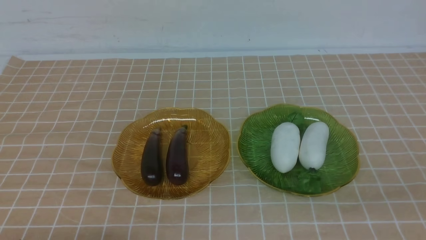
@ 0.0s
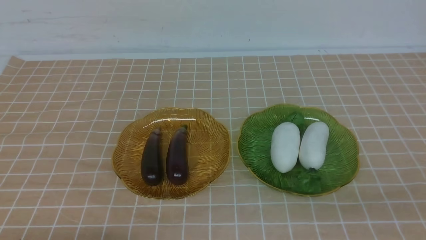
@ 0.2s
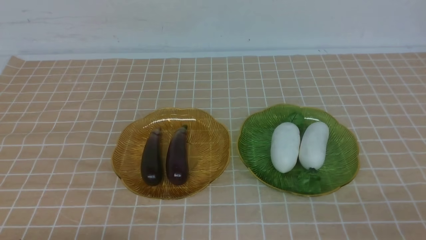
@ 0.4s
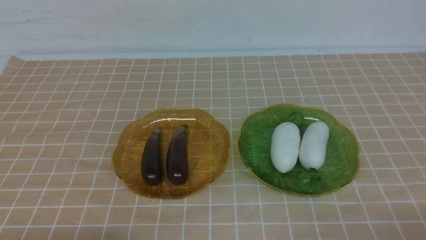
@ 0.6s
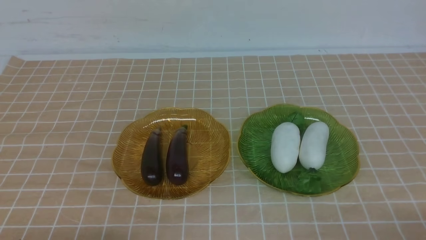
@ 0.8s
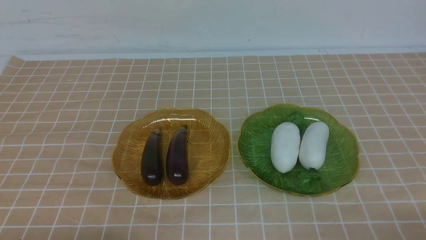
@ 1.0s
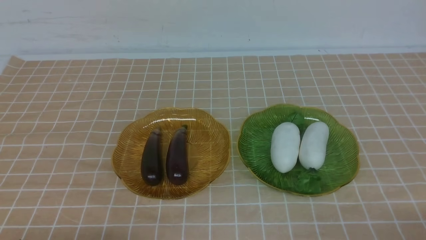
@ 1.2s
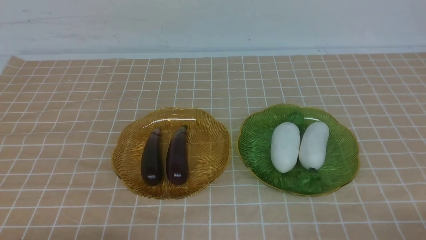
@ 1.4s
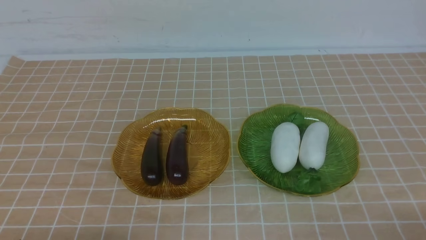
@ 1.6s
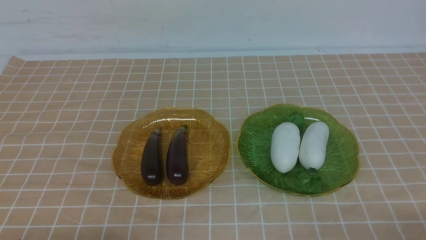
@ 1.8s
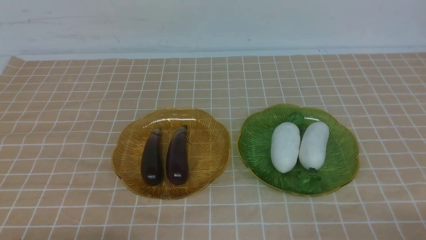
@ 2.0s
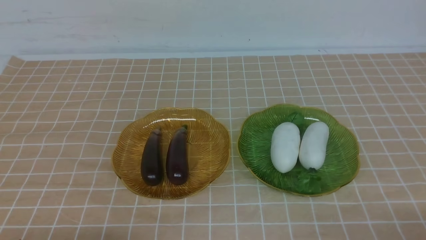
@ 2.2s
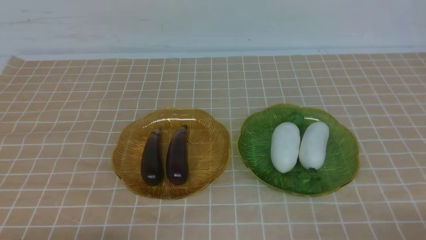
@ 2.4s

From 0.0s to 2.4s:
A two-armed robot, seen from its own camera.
From 1.2s to 2.4s: Both grippers stay put.
